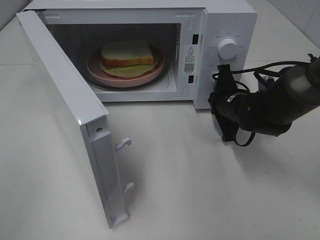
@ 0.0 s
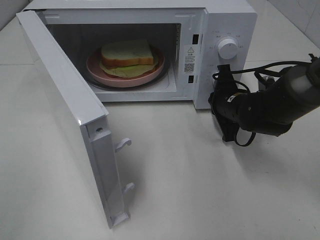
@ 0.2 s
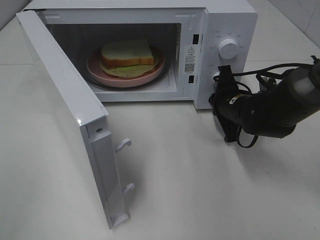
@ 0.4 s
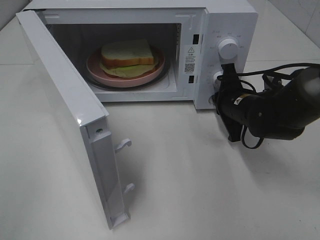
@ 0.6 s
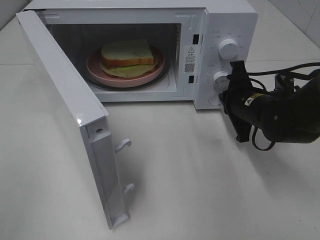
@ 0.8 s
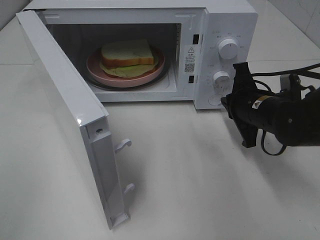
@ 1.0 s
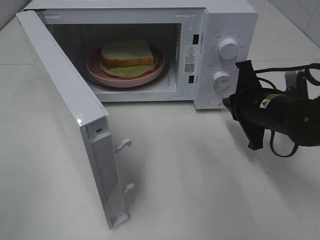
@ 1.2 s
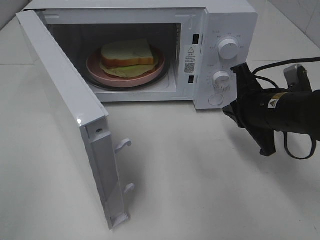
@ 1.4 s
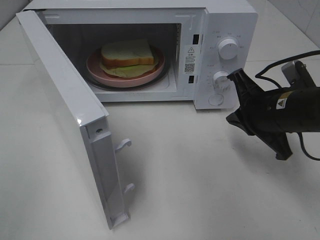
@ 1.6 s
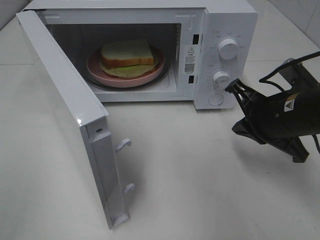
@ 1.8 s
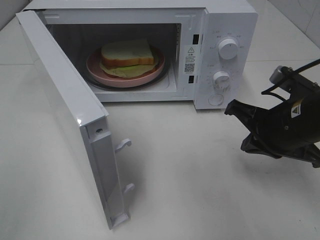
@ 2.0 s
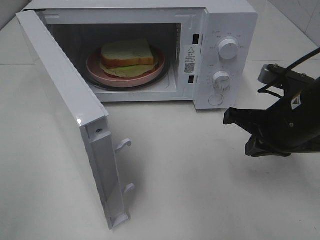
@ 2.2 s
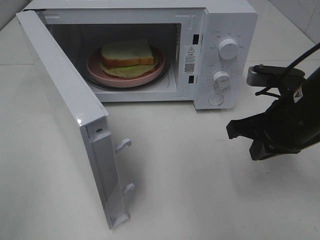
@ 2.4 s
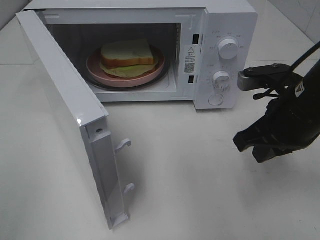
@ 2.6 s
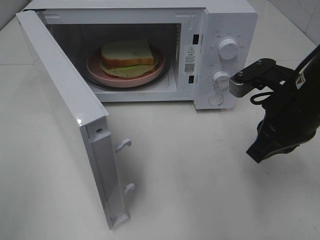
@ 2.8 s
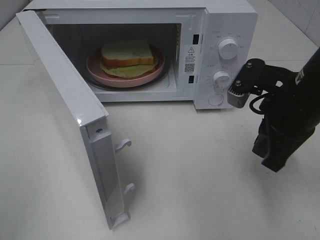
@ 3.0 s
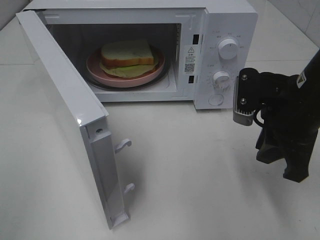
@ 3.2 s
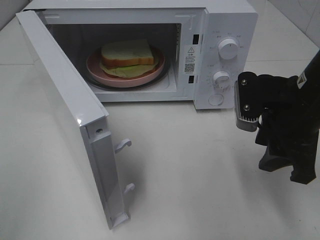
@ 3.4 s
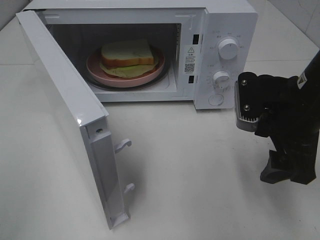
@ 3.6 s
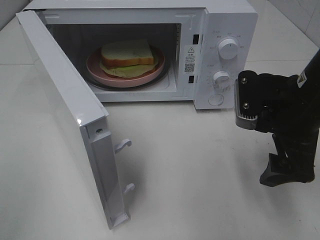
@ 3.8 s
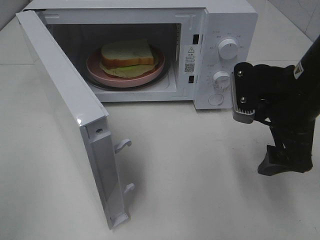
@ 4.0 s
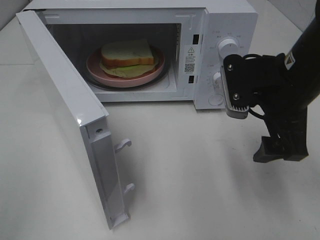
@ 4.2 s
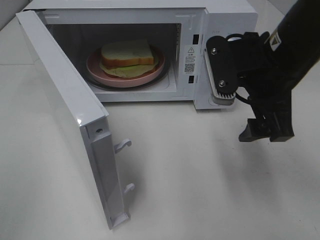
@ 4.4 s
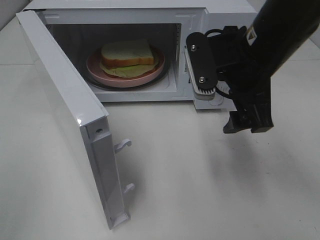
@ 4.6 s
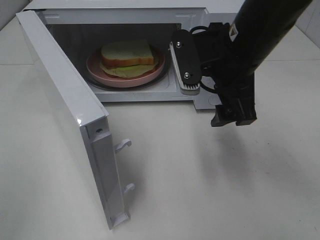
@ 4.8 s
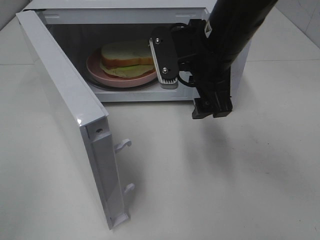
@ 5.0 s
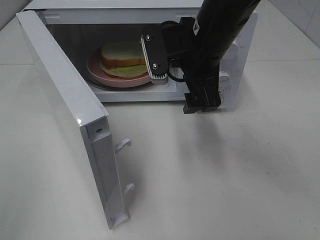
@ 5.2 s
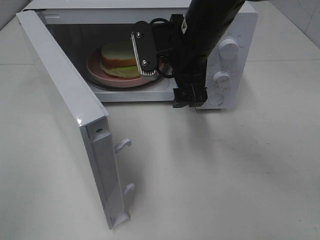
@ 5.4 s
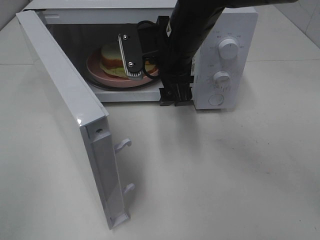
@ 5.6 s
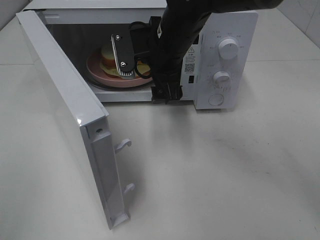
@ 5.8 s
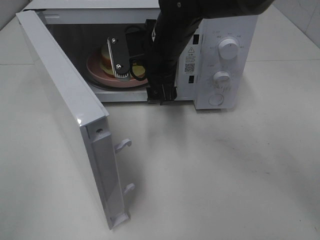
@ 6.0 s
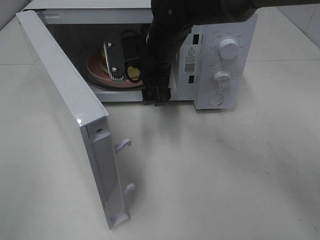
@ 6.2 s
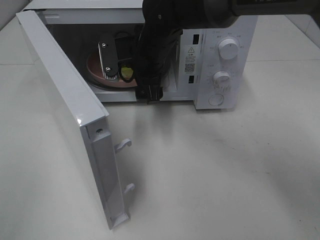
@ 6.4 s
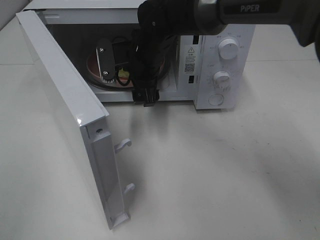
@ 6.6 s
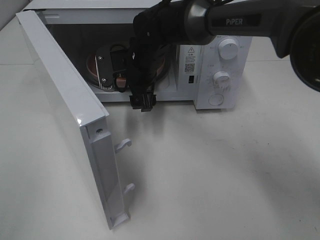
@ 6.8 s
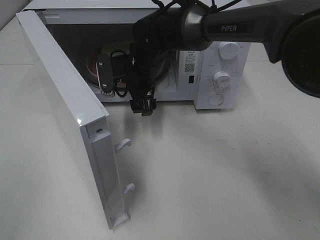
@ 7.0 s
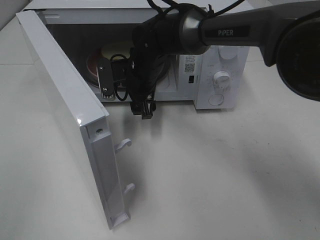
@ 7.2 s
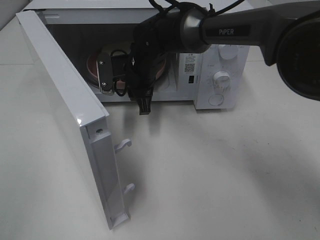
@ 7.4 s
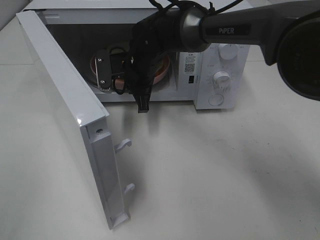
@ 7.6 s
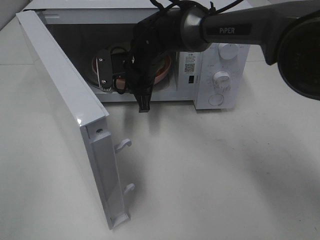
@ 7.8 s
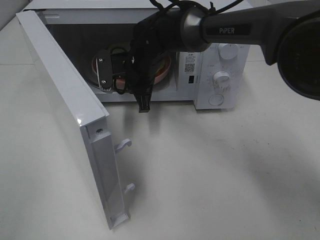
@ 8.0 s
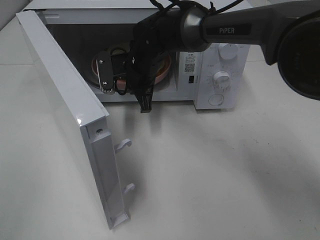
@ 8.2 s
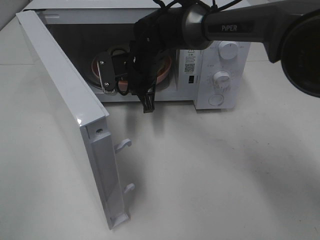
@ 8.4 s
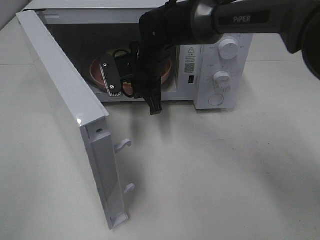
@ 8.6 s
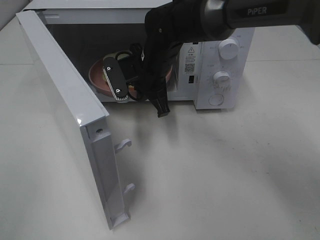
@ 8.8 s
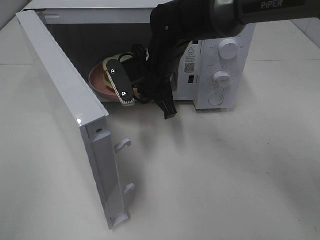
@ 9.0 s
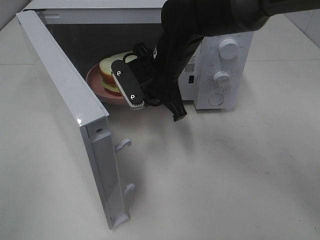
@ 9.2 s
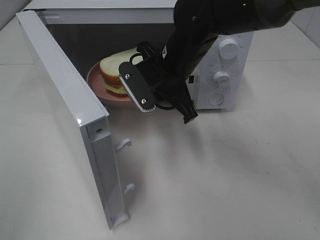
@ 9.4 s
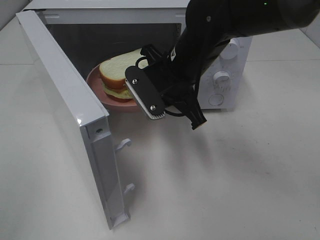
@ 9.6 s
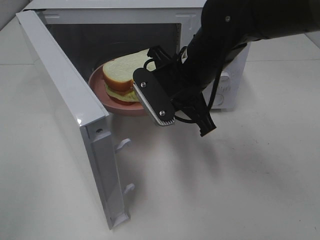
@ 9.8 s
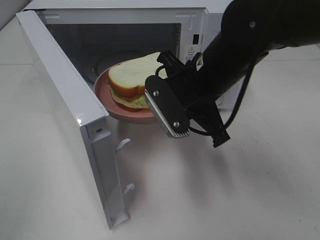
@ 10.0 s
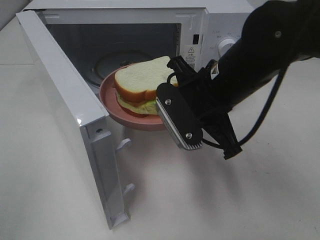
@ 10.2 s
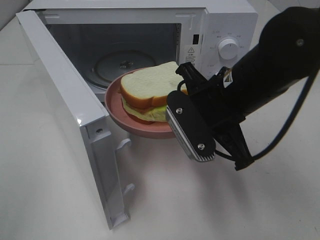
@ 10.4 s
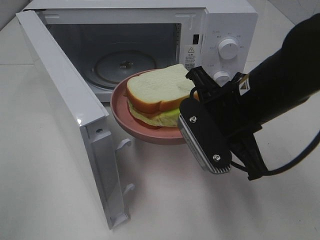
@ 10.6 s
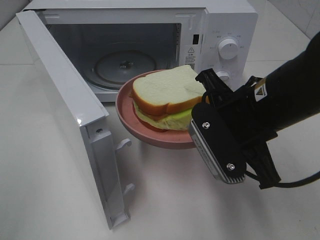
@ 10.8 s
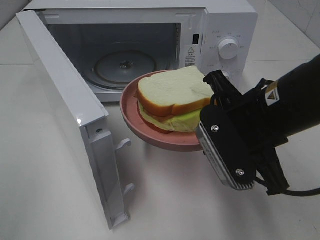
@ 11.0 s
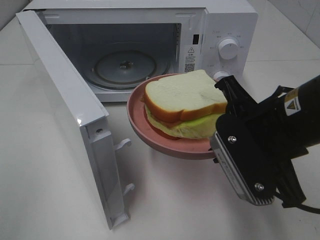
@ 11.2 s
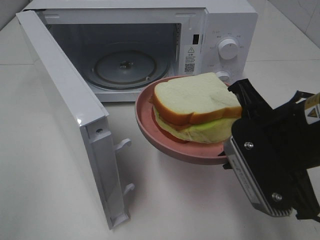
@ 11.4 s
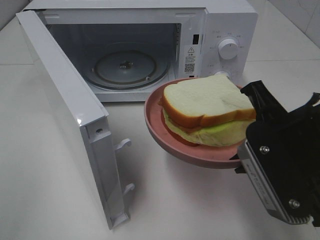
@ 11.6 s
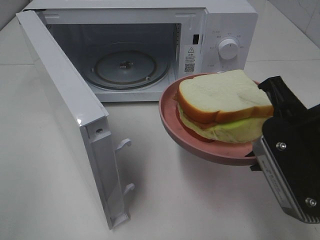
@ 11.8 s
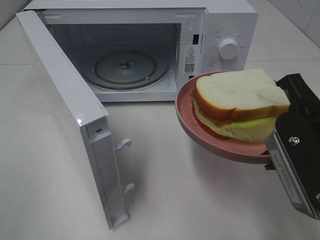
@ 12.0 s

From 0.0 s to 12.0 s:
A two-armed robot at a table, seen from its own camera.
Task of the whole recording: Heat Sandwich.
Step, from 1.0 s to 7.6 s: Right hand: grab the plate with the sandwich.
From 0.0 s to 1.6 s: The right gripper moves backward and upward, approximately 15 cm.
From 3.0 s to 4.4 s: The right gripper shifts by approximately 5 cm, and opens its fingers.
From 4.4 s to 6.0 s: The right gripper shifts roughly 15 cm to the left and forward.
From 6.0 s to 7.6 s: The right gripper heads downward and forward, covering roughly 10 cm, and closes.
From 7.6 s to 9.0 s: The right gripper shifts by some 5 cm.
From 9.0 s to 10.4 s: The right gripper heads backward and to the right, covering roughly 15 cm.
From 10.4 s to 12.0 s: The right gripper is displaced backward and to the right by some 15 cm.

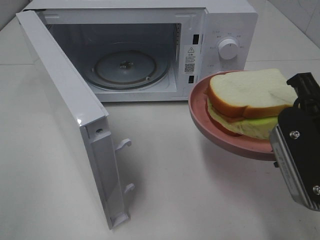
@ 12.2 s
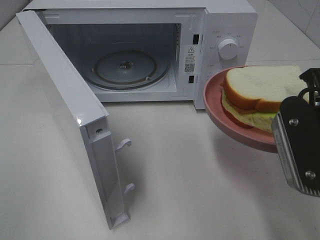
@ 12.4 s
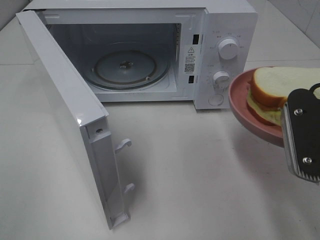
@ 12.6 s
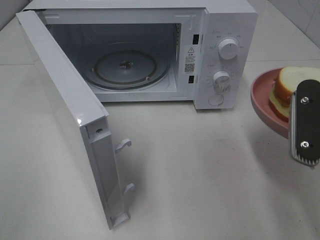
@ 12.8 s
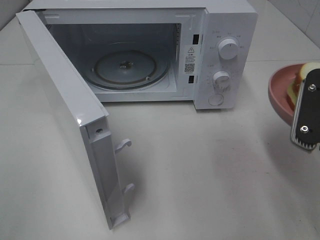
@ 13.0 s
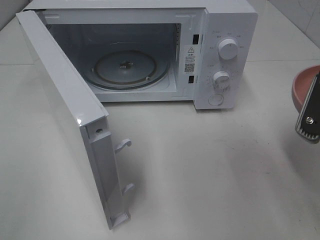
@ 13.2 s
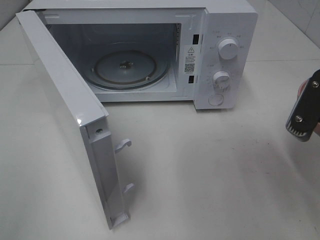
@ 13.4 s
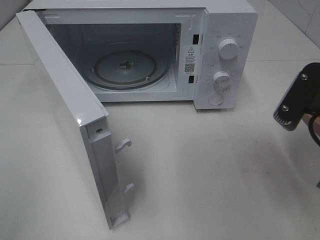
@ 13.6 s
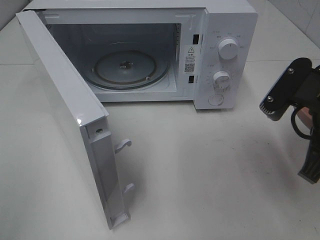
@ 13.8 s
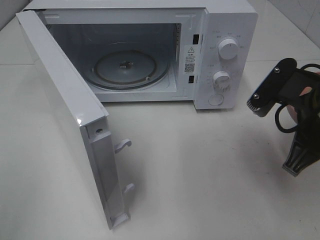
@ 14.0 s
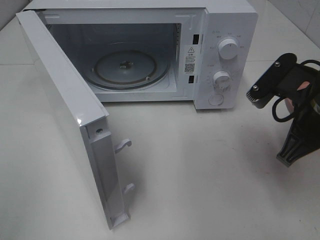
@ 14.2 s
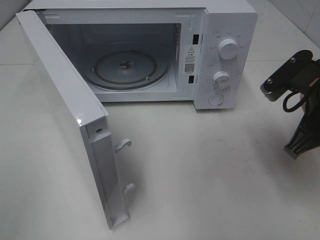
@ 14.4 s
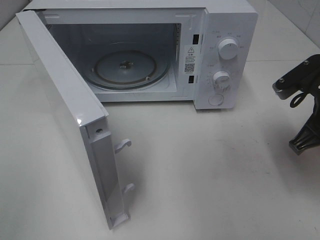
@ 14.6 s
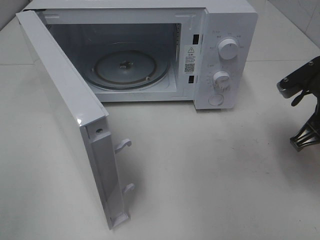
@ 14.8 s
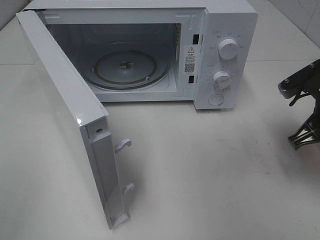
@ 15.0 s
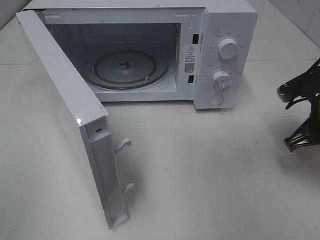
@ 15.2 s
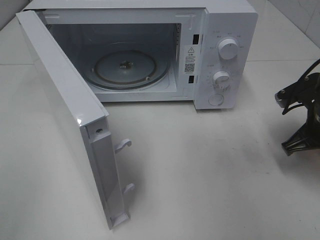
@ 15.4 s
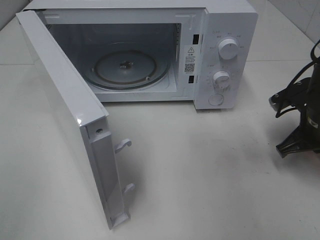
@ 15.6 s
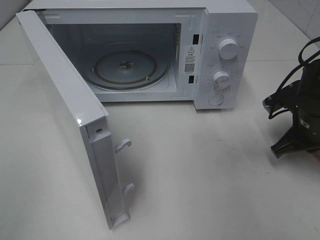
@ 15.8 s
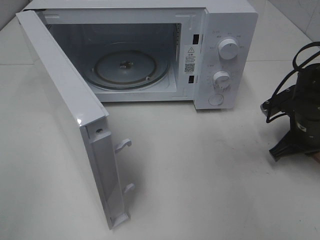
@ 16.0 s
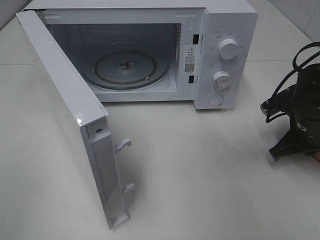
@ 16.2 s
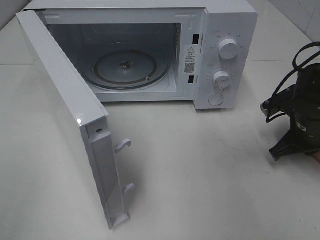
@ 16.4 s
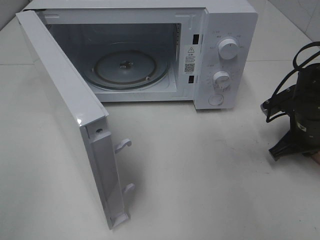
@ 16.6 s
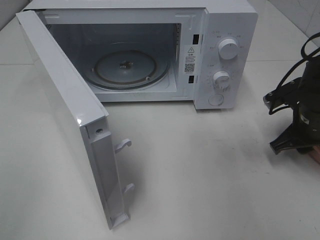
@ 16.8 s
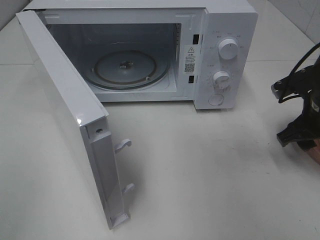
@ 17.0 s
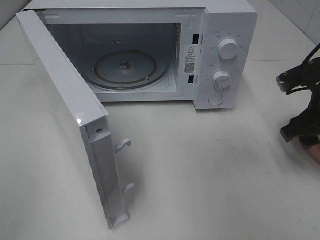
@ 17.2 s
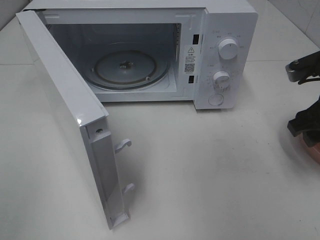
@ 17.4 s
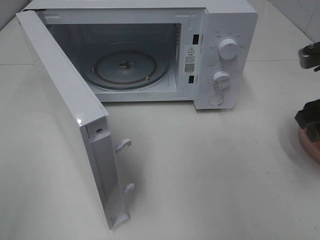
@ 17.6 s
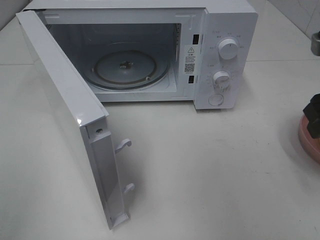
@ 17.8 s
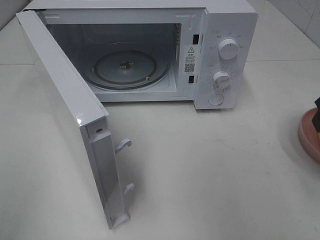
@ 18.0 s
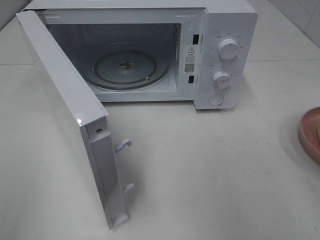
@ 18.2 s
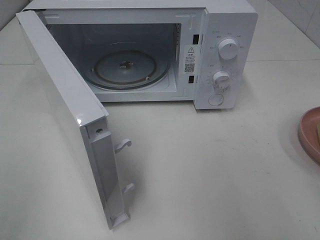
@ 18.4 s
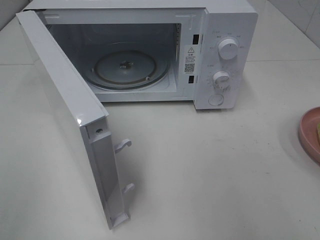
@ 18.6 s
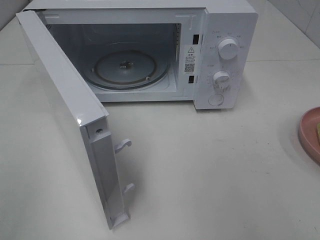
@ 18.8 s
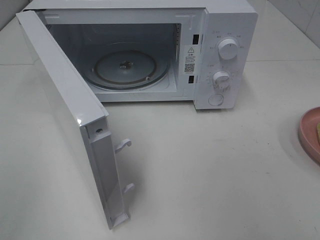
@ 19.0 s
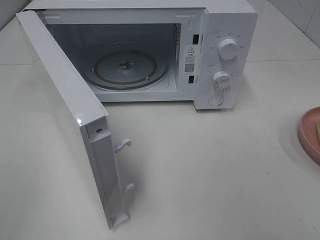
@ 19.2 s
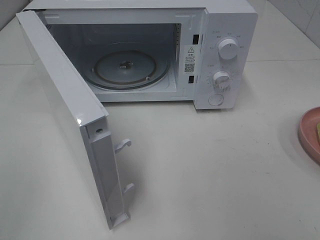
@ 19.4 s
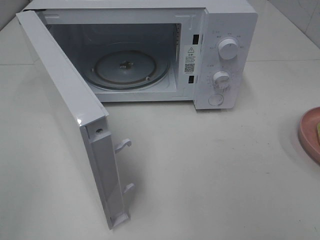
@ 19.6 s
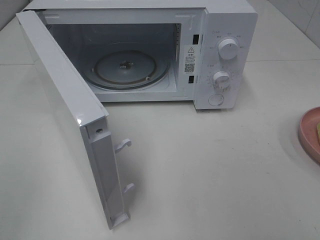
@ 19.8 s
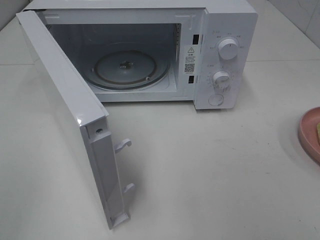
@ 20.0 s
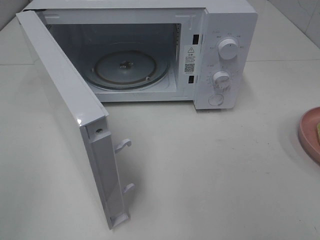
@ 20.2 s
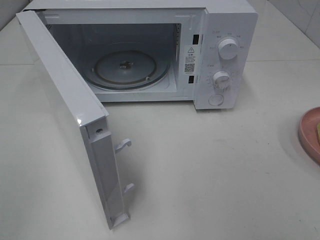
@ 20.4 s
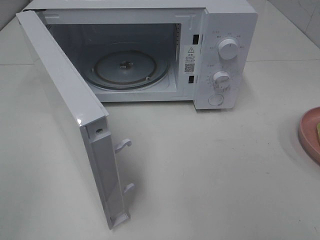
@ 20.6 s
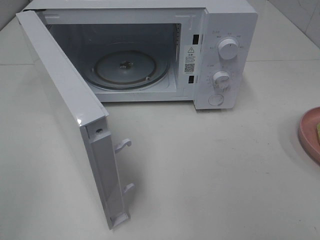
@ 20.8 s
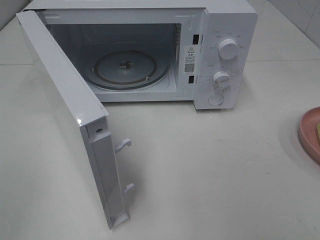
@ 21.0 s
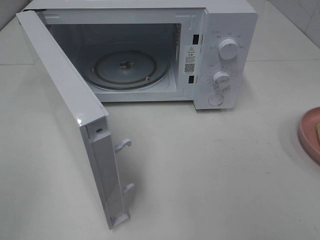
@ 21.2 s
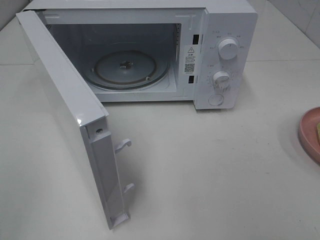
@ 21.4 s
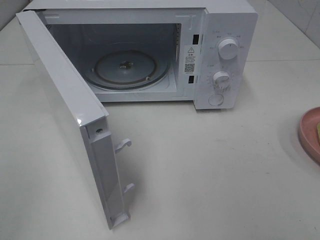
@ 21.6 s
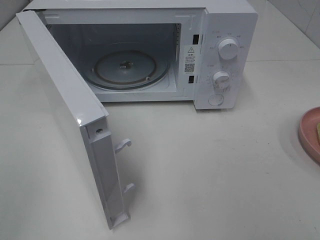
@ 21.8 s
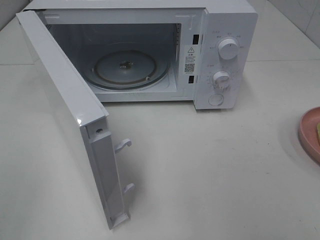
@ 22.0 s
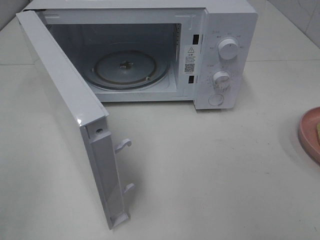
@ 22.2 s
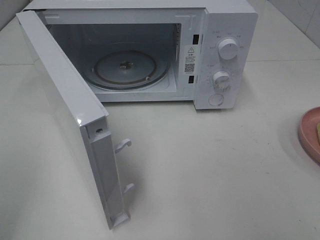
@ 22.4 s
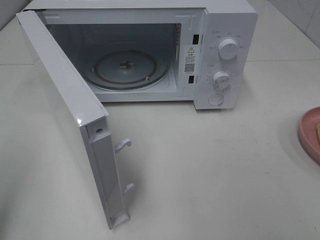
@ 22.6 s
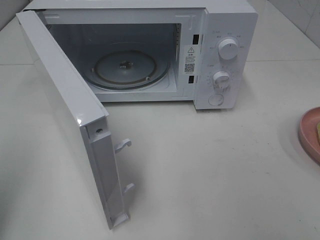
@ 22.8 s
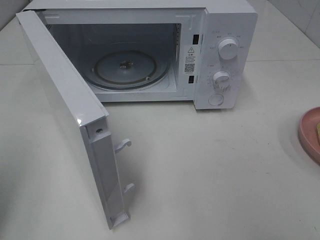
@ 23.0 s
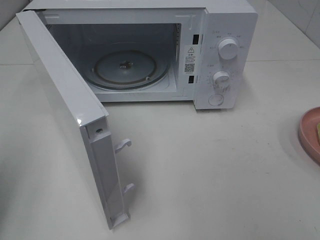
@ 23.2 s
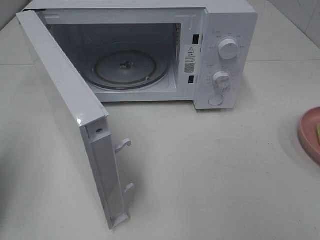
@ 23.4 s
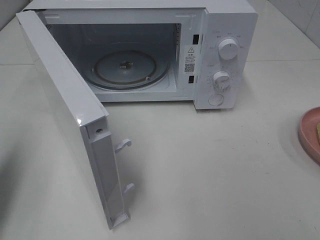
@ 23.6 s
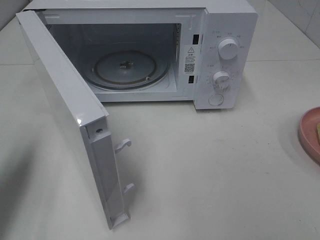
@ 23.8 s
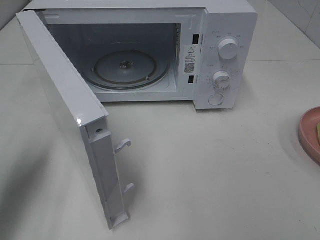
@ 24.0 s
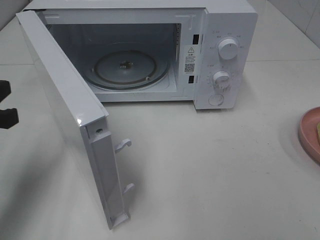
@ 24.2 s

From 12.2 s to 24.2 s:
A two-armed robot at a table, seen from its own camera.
Task of the whole recording: Heat Sandwich.
Step, from 12.2 s to 17.2 s: Right hand: place the plate on the table.
From 12.2 s to 13.8 s: The right gripper ends up some 5 cm from where it was.
From 13.8 s to 15.2 s: The right gripper heads forward, downward and to the right, covering approximately 15 cm.
From 15.2 s to 16.6 s: The right gripper changes place by about 5 cm.
From 16.6 s to 18.2 s: The right gripper shifts approximately 25 cm upward and backward, and opens.
From 22.6 s to 24.2 s: The left gripper shifts some 20 cm forward, downward and to the right, and closes up.
